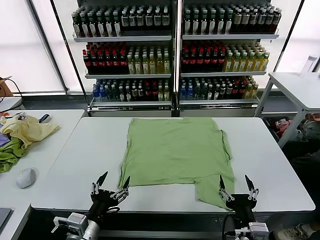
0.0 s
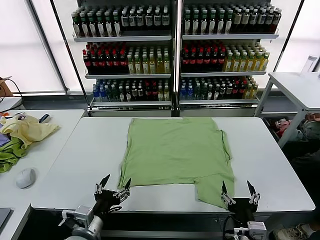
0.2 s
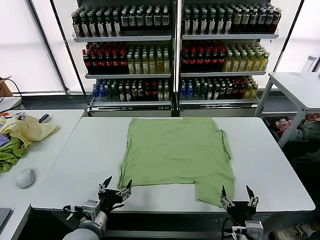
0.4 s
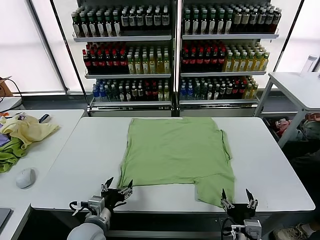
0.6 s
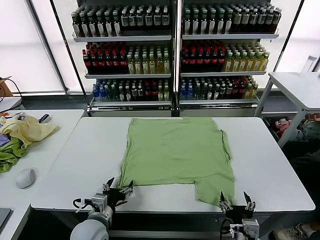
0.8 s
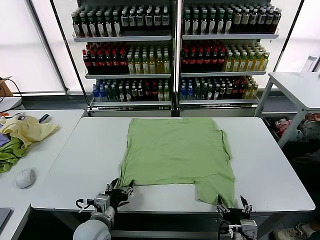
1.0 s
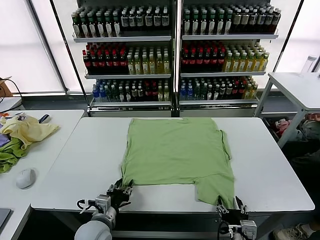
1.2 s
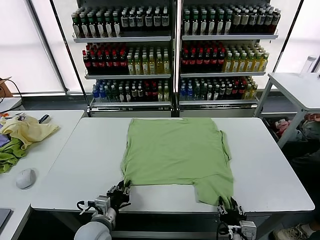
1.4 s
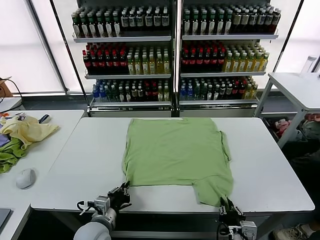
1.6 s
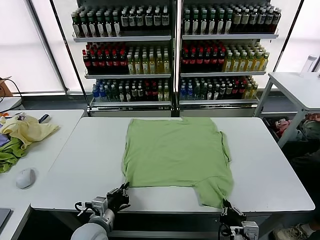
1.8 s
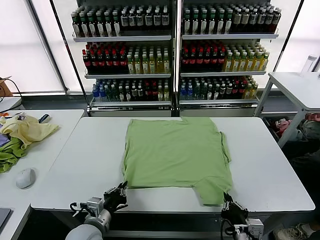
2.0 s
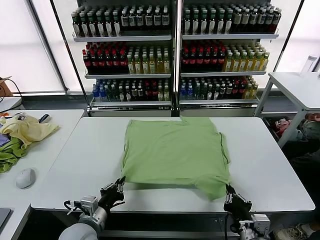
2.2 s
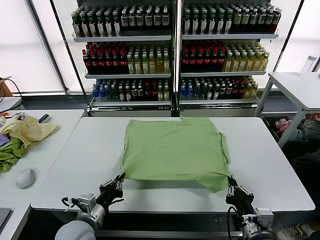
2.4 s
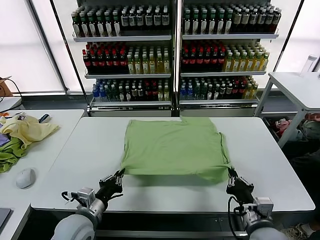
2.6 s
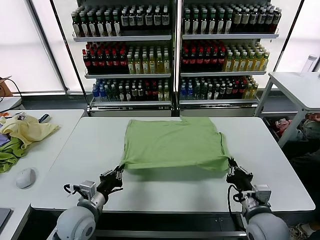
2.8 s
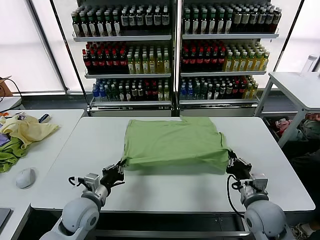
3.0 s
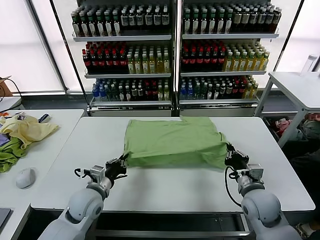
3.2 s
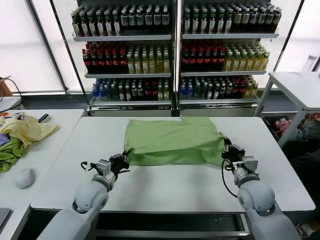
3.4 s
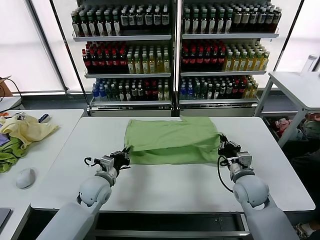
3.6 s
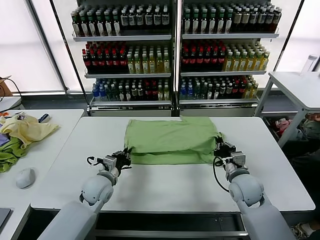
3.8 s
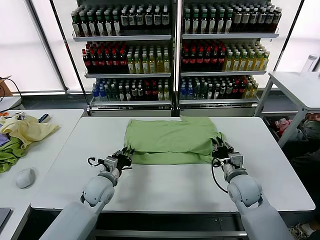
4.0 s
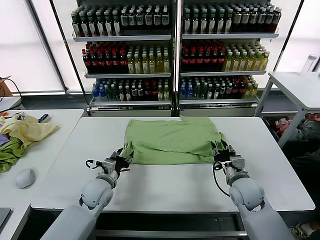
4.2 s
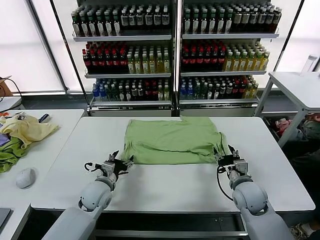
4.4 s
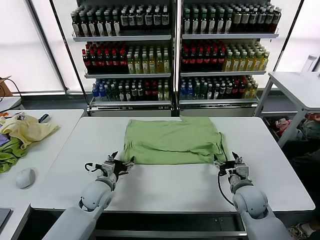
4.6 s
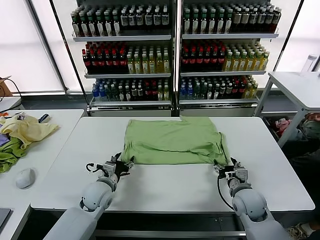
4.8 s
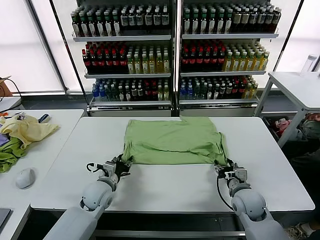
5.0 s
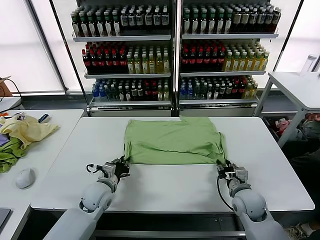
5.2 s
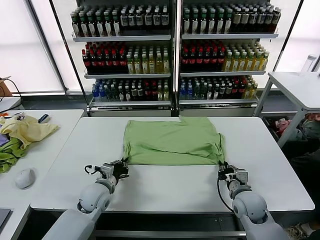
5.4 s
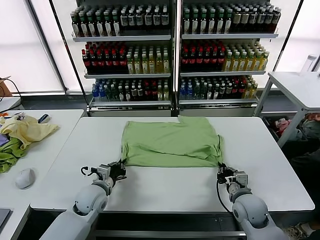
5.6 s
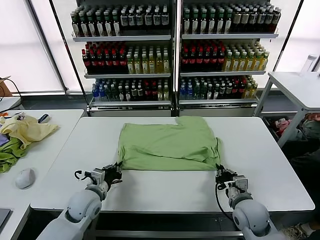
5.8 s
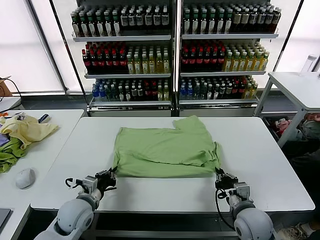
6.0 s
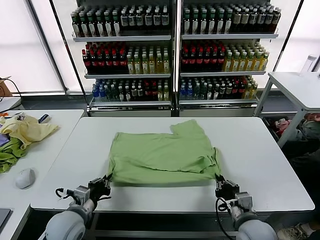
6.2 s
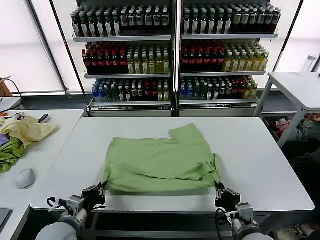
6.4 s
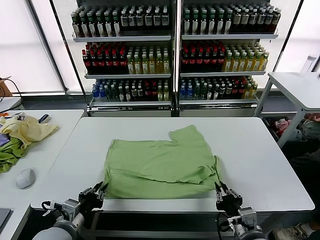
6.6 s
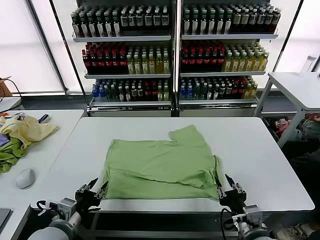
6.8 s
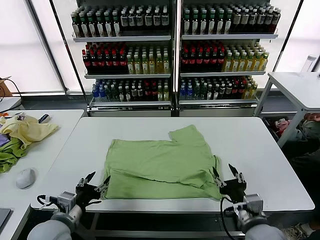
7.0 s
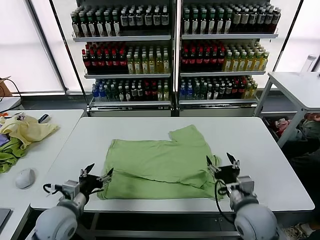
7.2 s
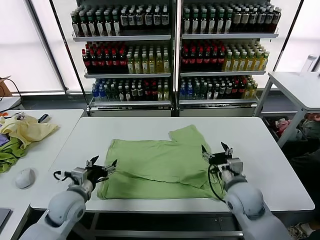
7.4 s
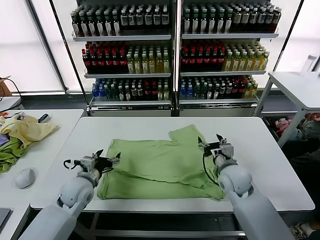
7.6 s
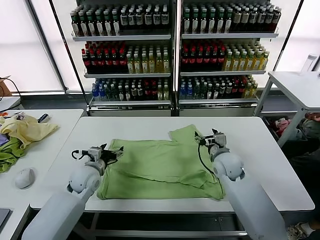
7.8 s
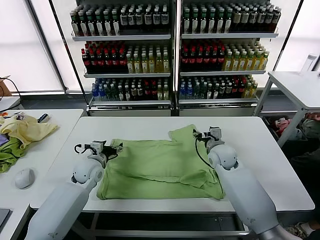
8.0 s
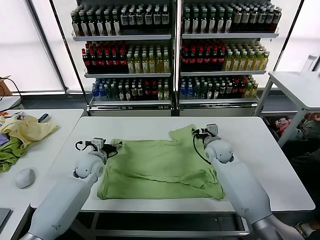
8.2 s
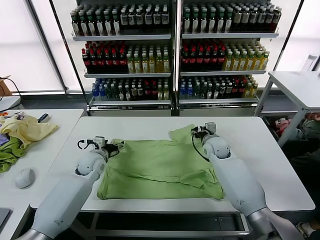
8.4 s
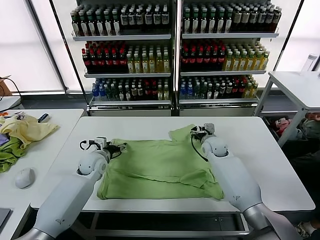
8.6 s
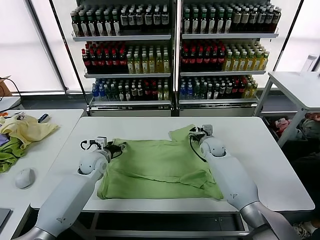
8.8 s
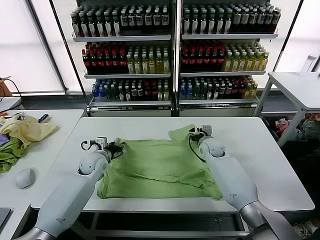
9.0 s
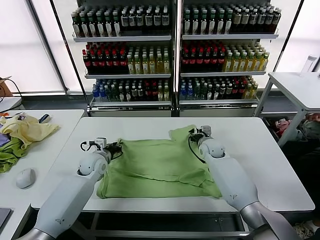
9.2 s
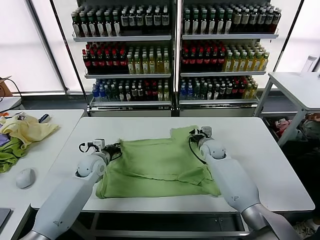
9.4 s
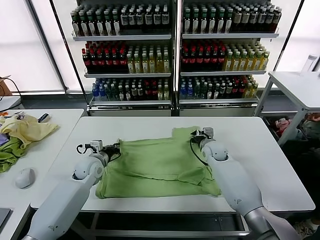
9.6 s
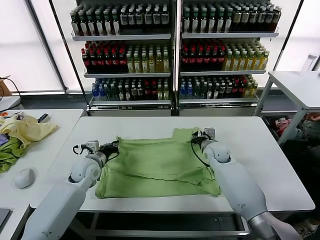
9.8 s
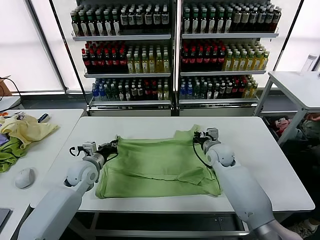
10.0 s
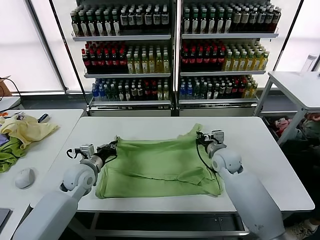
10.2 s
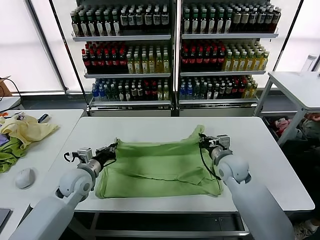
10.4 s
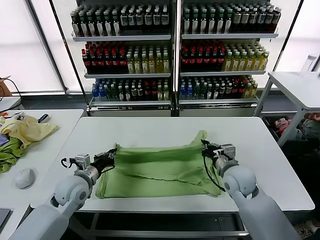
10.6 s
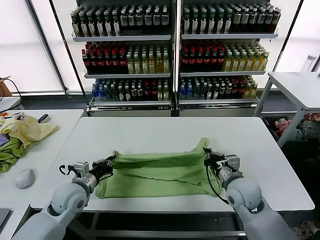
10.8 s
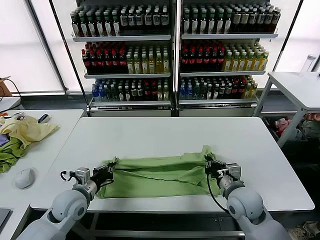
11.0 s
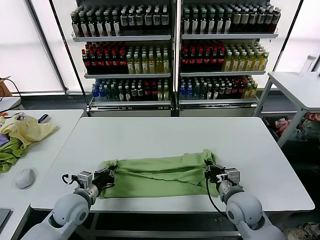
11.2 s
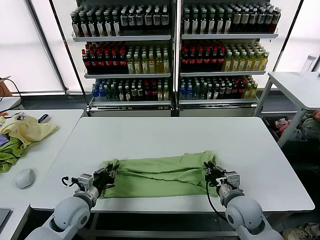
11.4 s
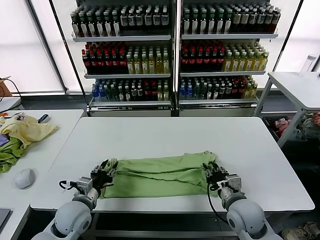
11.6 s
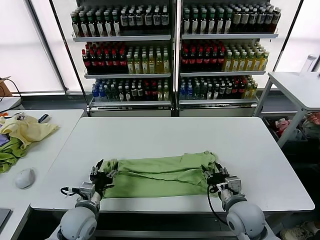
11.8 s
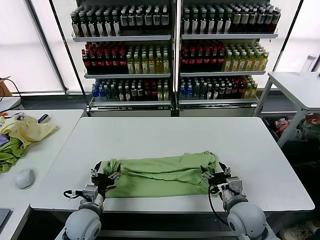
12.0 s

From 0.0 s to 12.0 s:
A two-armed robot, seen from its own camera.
Task of the whole recording: fold and organize the clothes.
Step, from 0.0 s to 1.8 s: use both grippers simultaneously to clamp the lower edge of the clothing fabric.
Step, from 2.0 s to 4.2 s: use both grippers to drag the lower edge of the fabric forward and fold it over the upper edge.
Step, from 4.4 s to 6.6 s: Drag the clothes downward with both gripper.
Step, from 6.8 s to 9.6 s: use both grippers simultaneously to clamp the upper edge of the clothing fabric.
Step, from 9.8 s to 11.6 s: use both grippers to drag the upper edge of the fabric backward and fold it over the lower edge.
From 1.6 s to 3.0 s: The right gripper moves forward, about 15 cm. The left gripper heads forward, covering approximately 5 cm.
From 3.0 s to 4.4 s: The left gripper goes roughly 5 cm forward, and opens its fingers. The right gripper moves roughly 5 cm, and opens.
From 4.4 s to 6.0 s: The grippers both shift backward by some 10 cm. The left gripper closes its fingers. The right gripper closes.
From 6.0 s to 7.6 s: The left gripper heads forward, covering roughly 10 cm, and opens up. The right gripper moves forward, approximately 15 cm, and opens its fingers.
From 7.6 s to 9.0 s: The grippers both shift forward by about 15 cm. The left gripper closes its fingers. Meanwhile the right gripper closes up.
From 9.0 s to 10.4 s: Both grippers move backward, approximately 10 cm. The left gripper closes; the right gripper closes its fingers.
From 10.4 s to 12.0 s: The left gripper goes some 15 cm backward and downward, and opens. Meanwhile the right gripper moves backward, approximately 15 cm, and opens up.

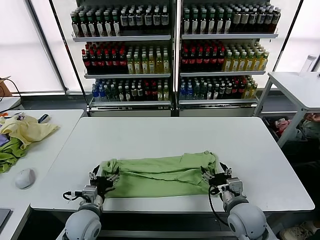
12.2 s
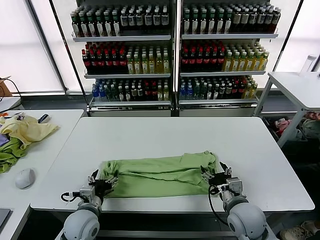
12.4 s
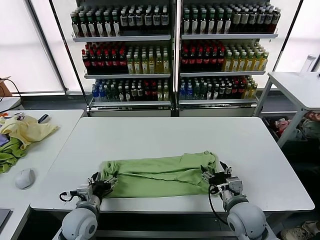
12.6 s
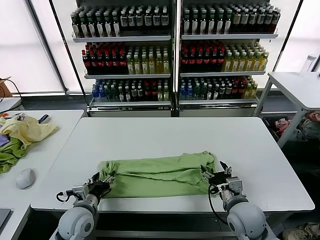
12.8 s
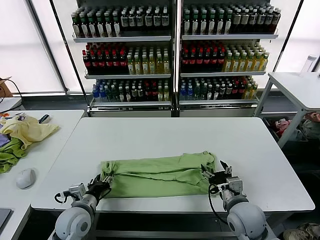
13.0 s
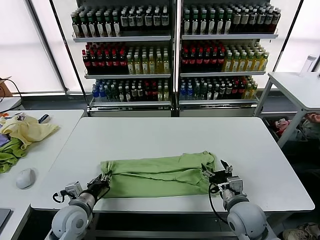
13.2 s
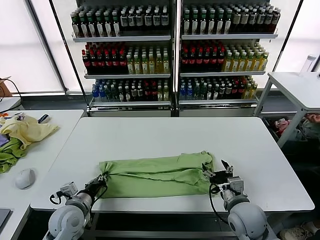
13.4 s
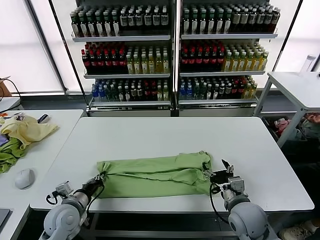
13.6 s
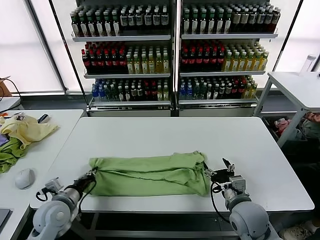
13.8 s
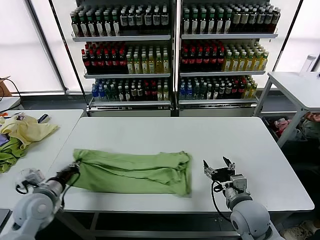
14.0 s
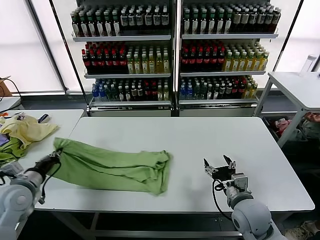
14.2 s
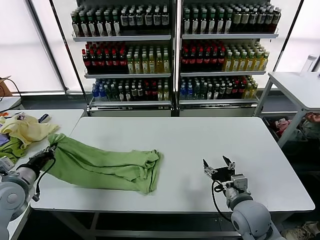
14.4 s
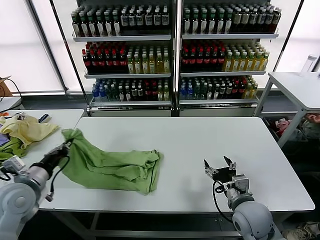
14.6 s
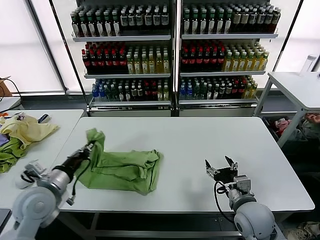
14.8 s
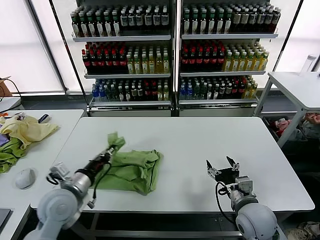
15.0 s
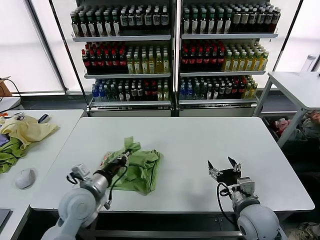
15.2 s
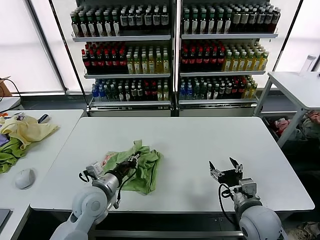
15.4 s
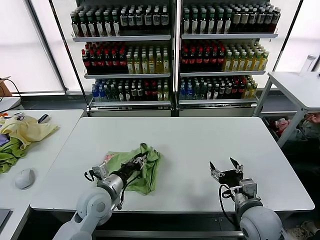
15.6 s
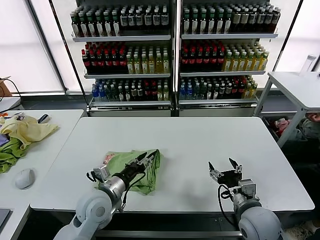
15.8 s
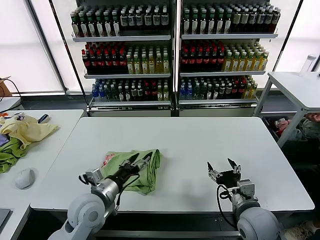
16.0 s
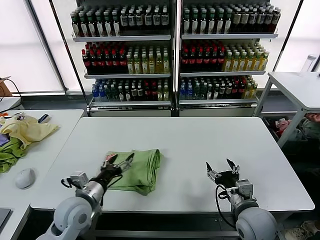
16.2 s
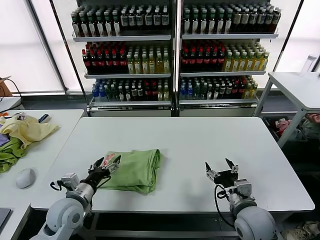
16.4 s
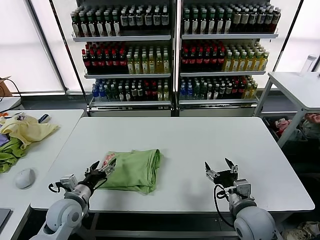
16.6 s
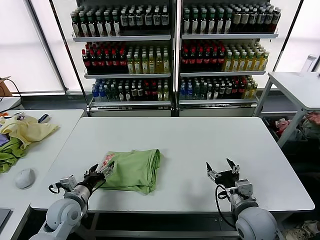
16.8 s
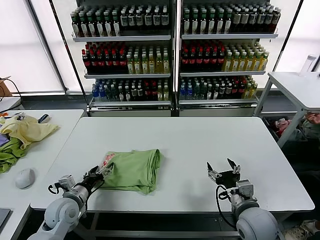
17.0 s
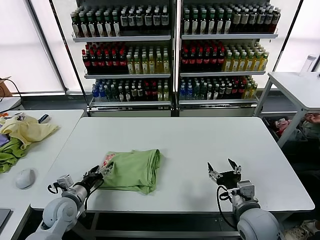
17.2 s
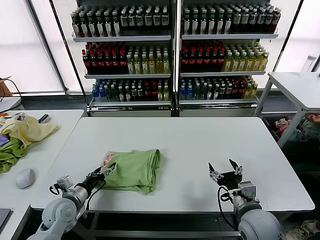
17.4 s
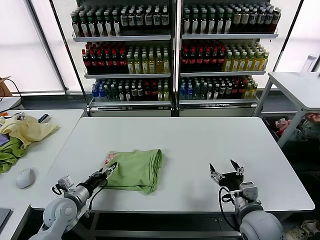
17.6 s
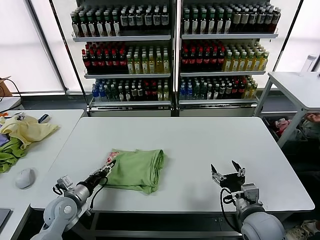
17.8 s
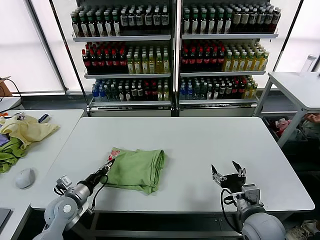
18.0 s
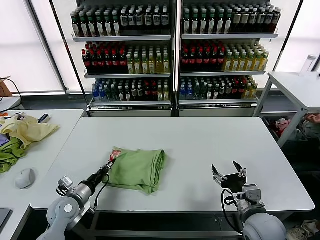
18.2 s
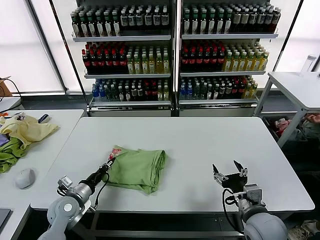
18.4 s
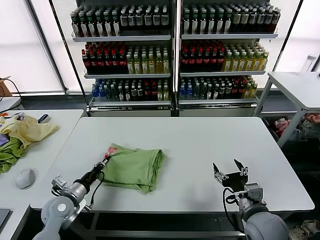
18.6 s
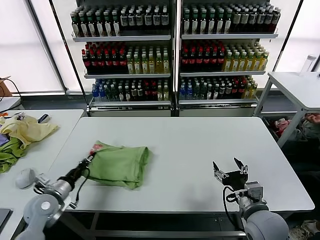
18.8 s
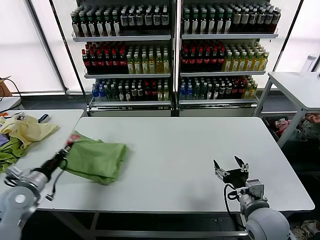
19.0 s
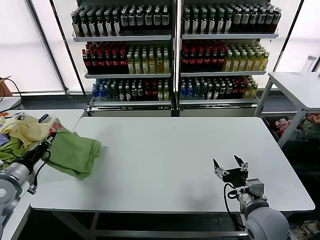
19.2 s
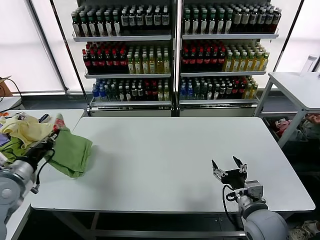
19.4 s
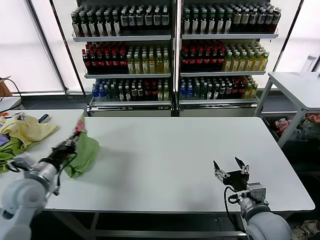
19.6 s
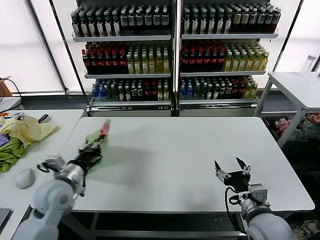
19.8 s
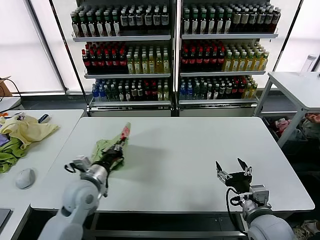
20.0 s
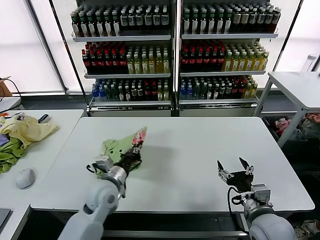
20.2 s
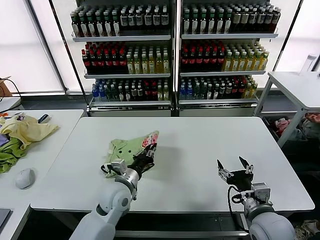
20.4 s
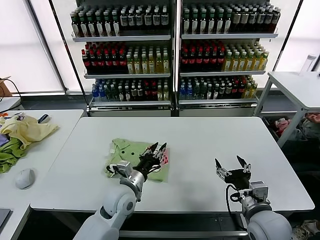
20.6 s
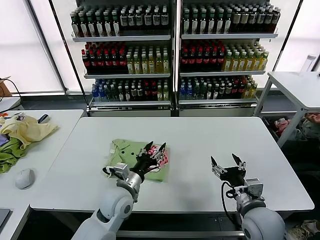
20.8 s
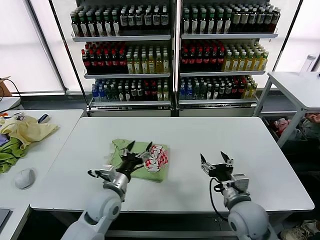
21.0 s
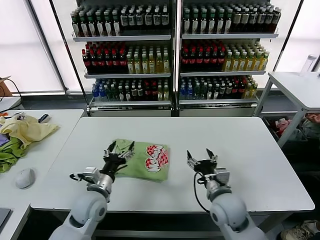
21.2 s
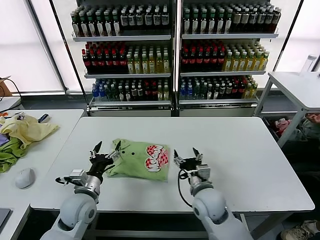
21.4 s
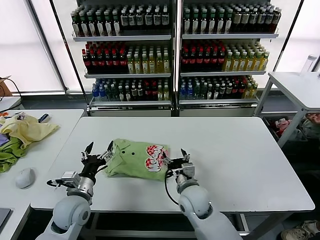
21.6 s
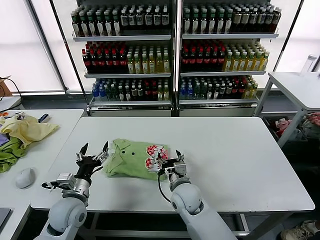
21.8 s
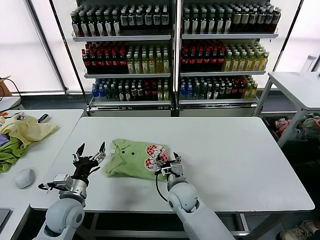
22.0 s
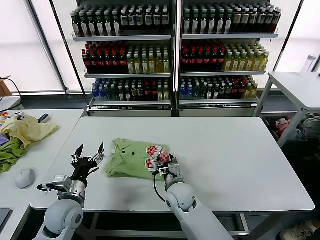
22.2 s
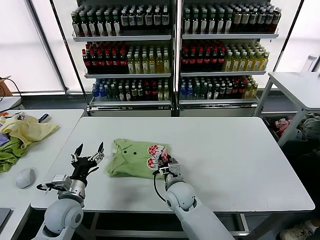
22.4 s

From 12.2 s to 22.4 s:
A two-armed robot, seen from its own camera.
Task of the whole recording: fold and organize the clothes.
Step, from 12.2 s to 13.4 s: use the left gripper to clamp the left edge of the fabric.
Step, from 13.6 s to 15.6 s: use the left gripper to drag the left edge of the fabric to the left and folds it over the right edge.
Step, from 15.8 s to 20.6 s: Flip the folded clothes over with left gripper.
From 12.2 s to 13.6 s: The left gripper moves to the left, about 5 cm, and closes its fingers.
From 13.6 s to 15.2 s: The left gripper shifts some 10 cm upward, and goes to the left and returns, roughly 10 cm each way.
From 15.2 s to 16.6 s: The left gripper goes roughly 10 cm downward and to the left, and opens its fingers.
From 16.6 s to 18.0 s: The left gripper shifts by approximately 5 cm, and closes its fingers.
From 18.0 s to 19.4 s: The left gripper travels upward and to the left by approximately 20 cm.
From 19.4 s to 21.0 s: The left gripper heads to the right, covering roughly 30 cm, and opens up.
From 21.0 s to 22.4 s: The left gripper goes approximately 15 cm to the left; the right gripper travels to the left, forward and downward by some 25 cm, and closes its fingers.
